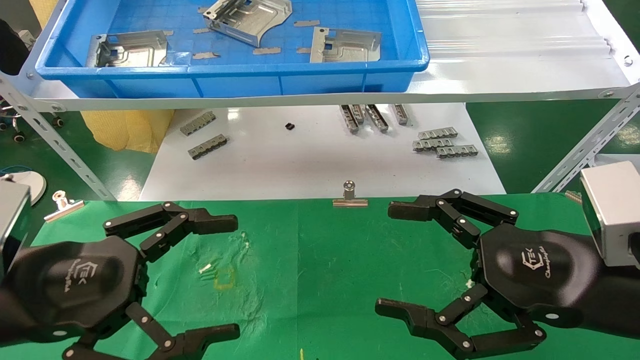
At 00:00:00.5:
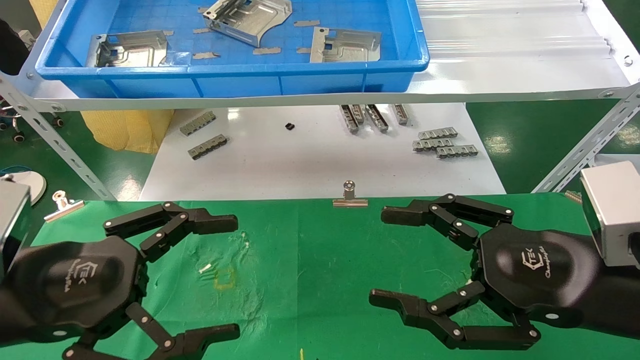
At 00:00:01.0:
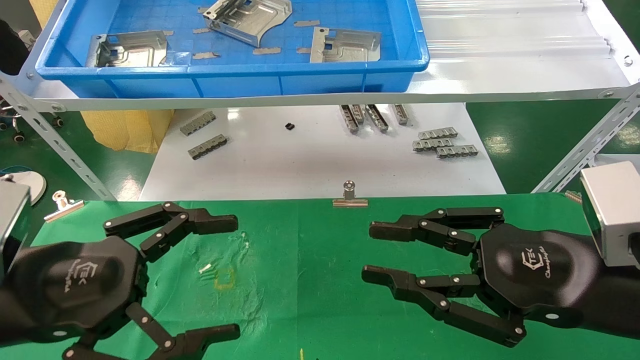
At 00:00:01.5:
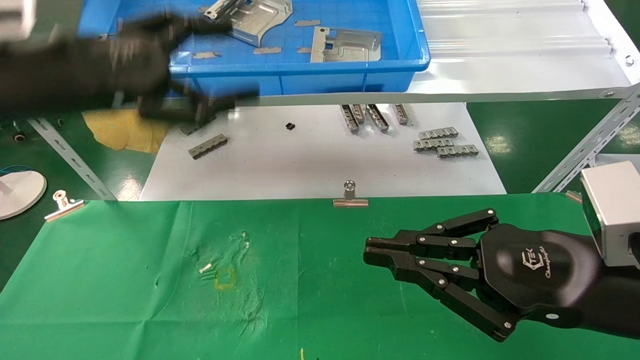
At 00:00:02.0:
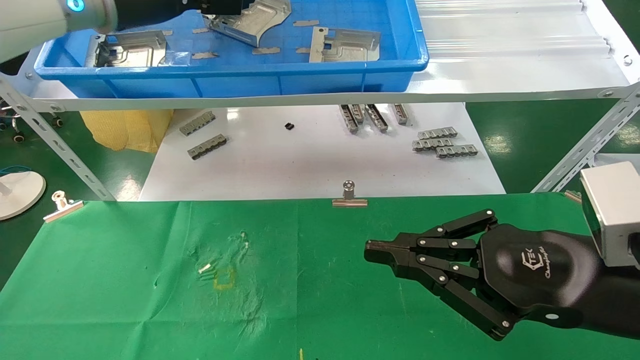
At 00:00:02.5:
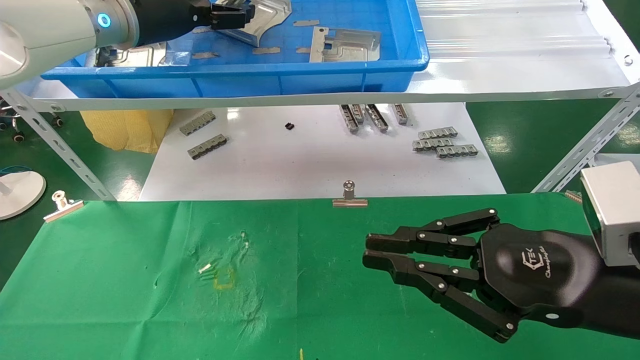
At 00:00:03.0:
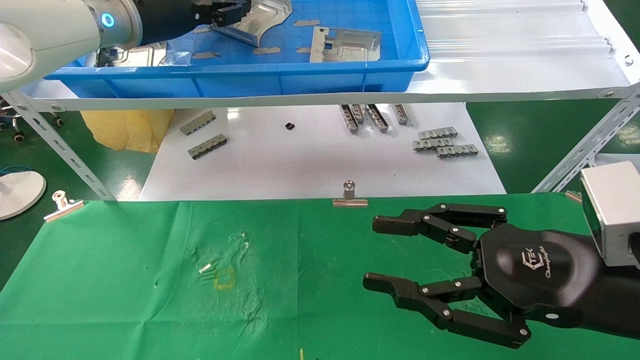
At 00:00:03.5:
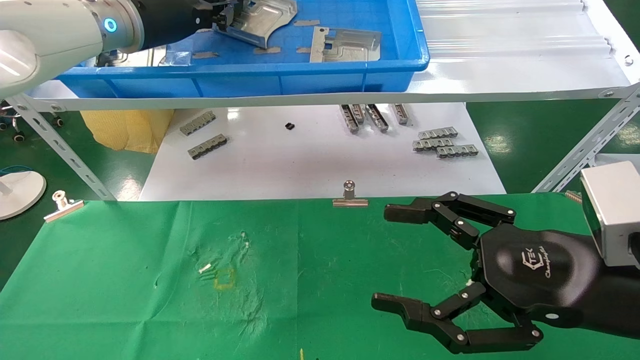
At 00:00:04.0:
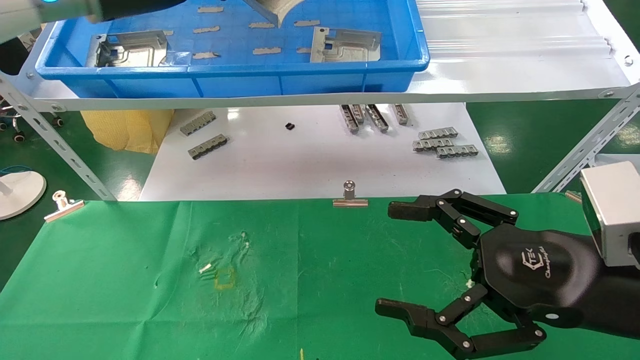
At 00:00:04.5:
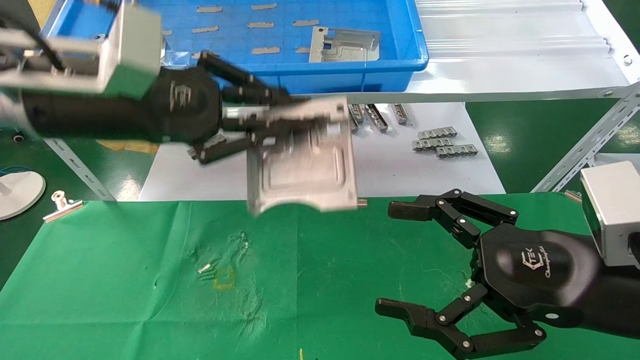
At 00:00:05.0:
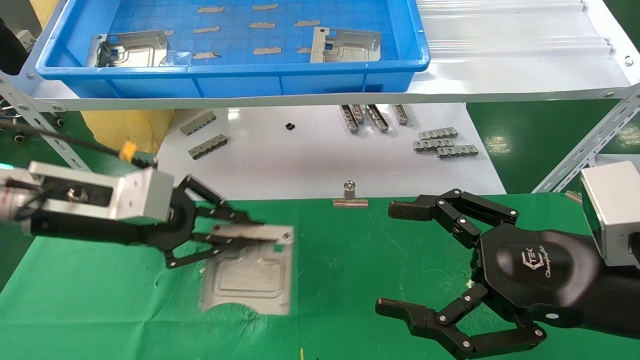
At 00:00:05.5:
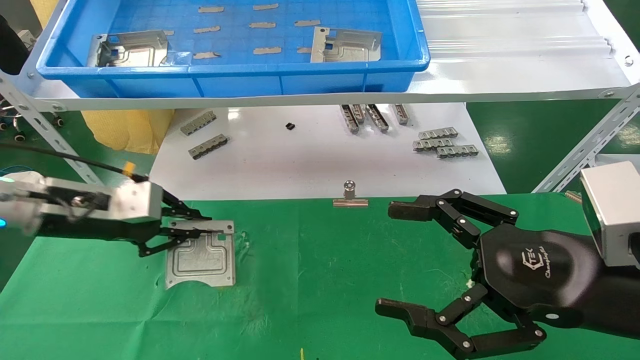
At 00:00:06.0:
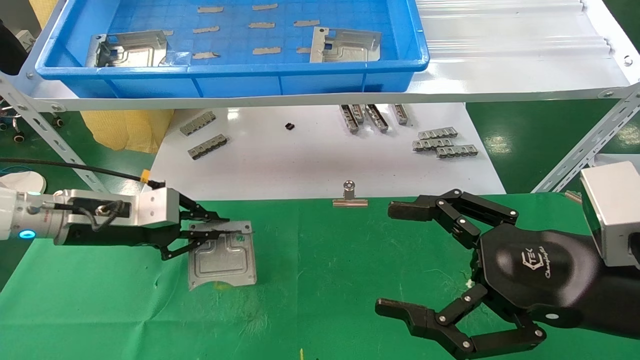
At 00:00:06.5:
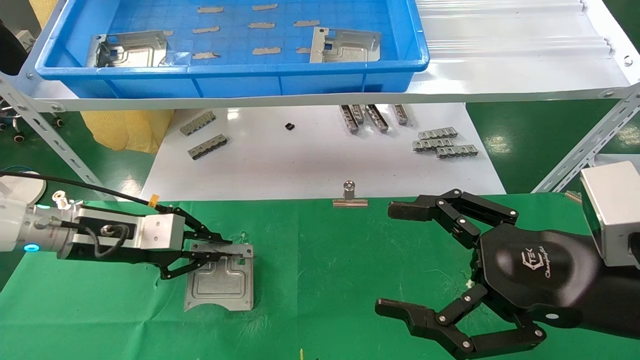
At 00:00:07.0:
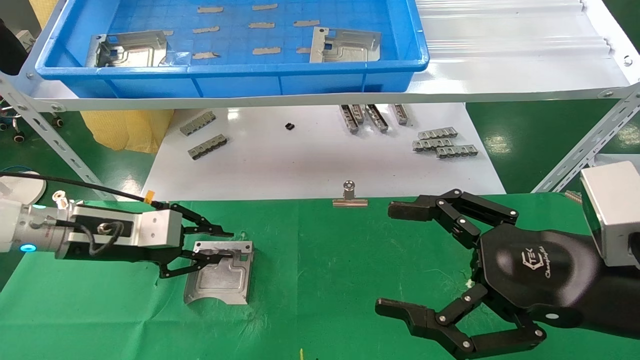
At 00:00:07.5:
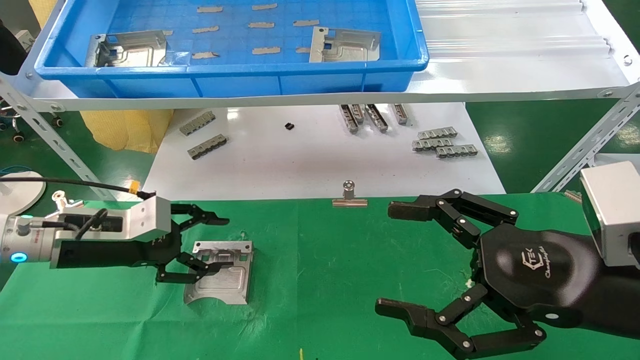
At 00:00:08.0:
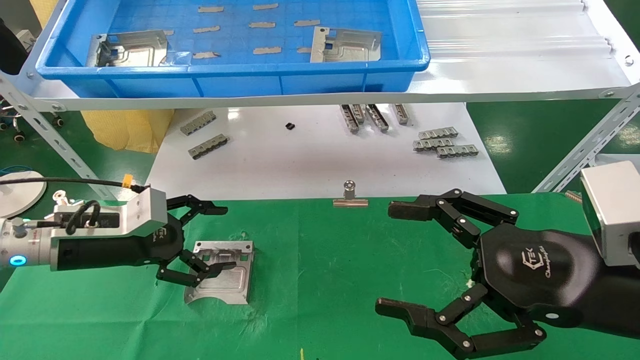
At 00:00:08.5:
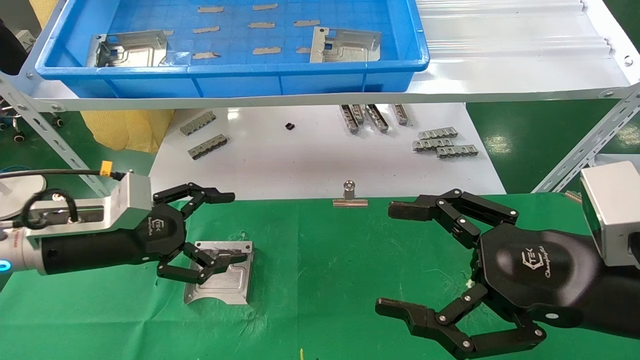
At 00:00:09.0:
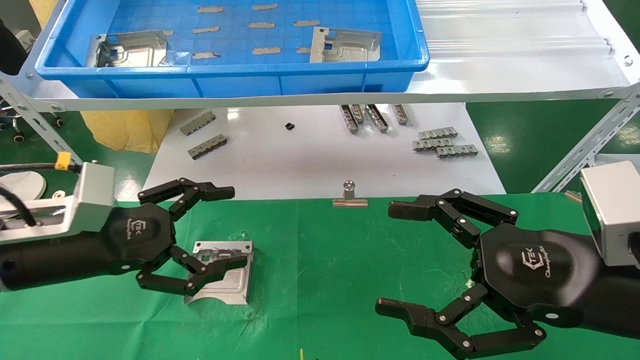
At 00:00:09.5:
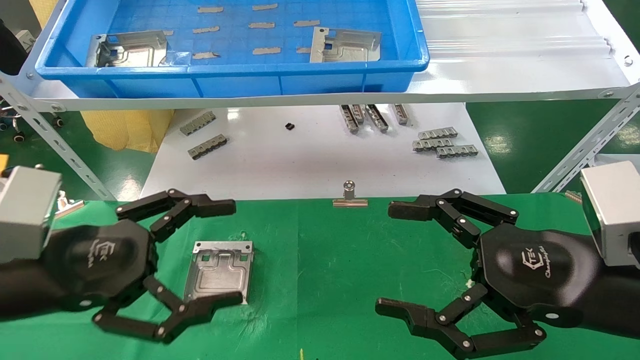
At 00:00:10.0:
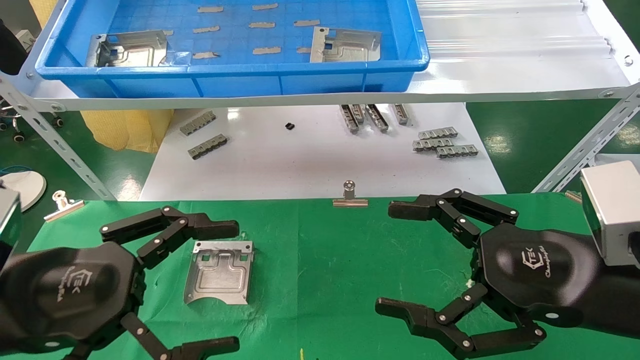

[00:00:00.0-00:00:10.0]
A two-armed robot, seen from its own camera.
Task of the whole recording: use the mechanical arm to pick up the parts and place them on the table.
Step, 00:00:01.5 to 00:00:03.0: Pick up the hard drive bracket from the feeding area.
Step, 00:00:03.5 to 00:00:07.0: Place the hard drive bracket into the box.
00:00:00.0 to 00:00:02.0: The right gripper closes its fingers, while the left gripper travels upward and forward by roughly 35 cm.
00:00:02.0 to 00:00:04.0: The right gripper opens its fingers. Meanwhile the left gripper closes.
00:00:04.0 to 00:00:06.0: The left gripper shifts approximately 25 cm downward and to the left.
00:00:06.0 to 00:00:08.0: The left gripper opens its fingers.
00:00:08.0 to 00:00:10.0: The left gripper goes some 20 cm backward.

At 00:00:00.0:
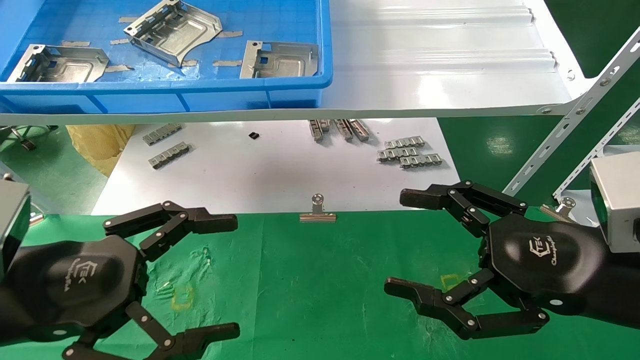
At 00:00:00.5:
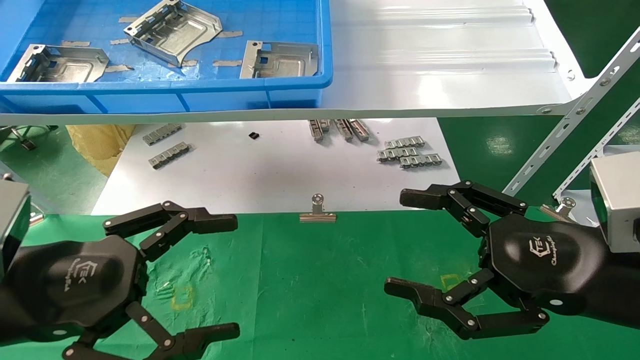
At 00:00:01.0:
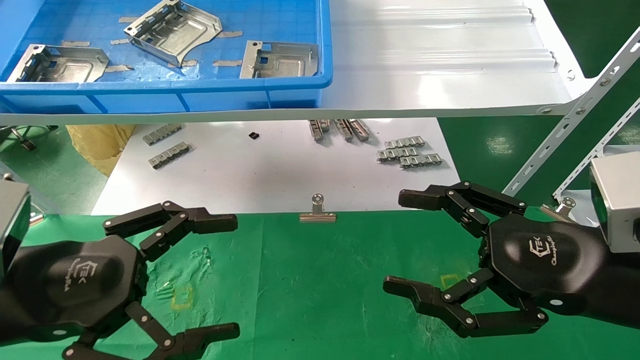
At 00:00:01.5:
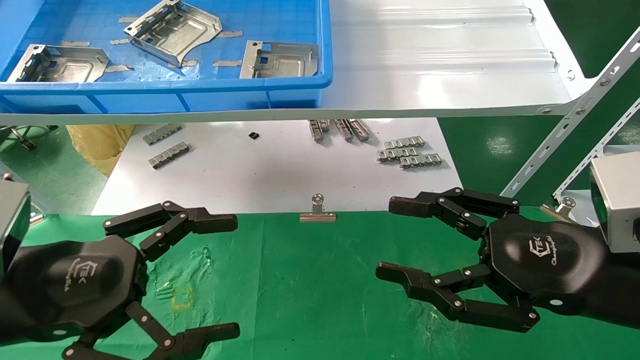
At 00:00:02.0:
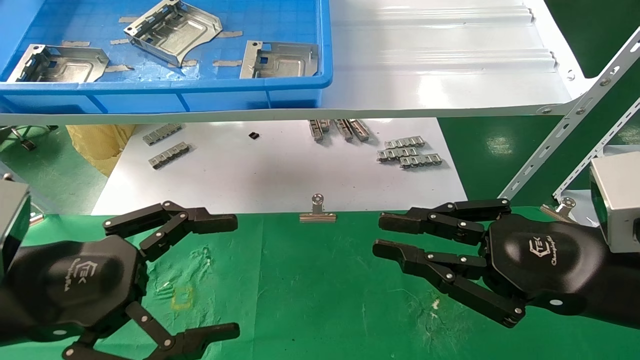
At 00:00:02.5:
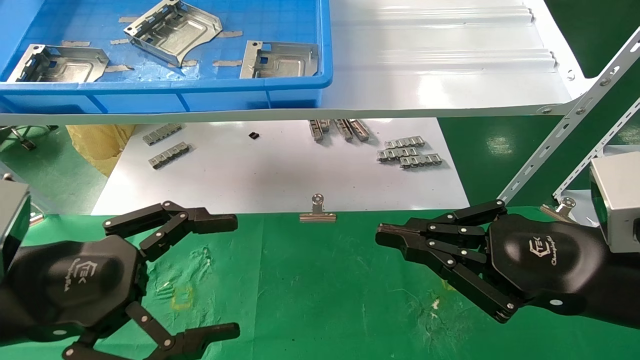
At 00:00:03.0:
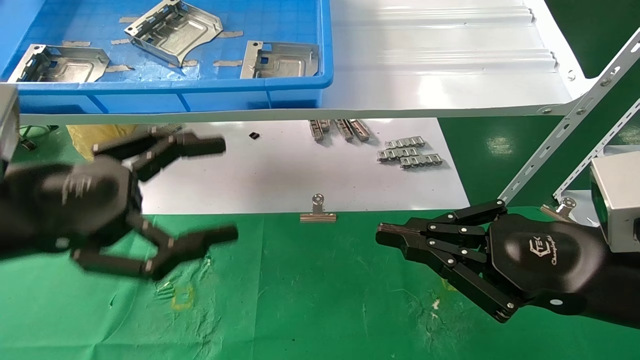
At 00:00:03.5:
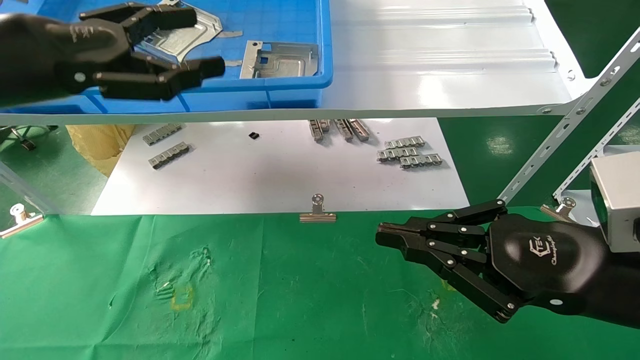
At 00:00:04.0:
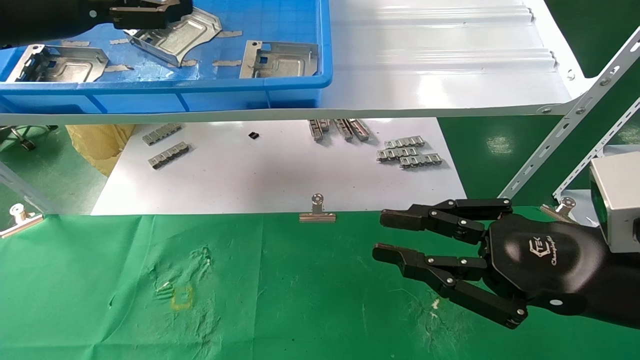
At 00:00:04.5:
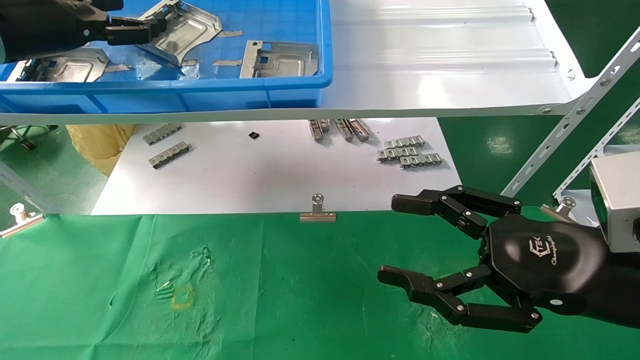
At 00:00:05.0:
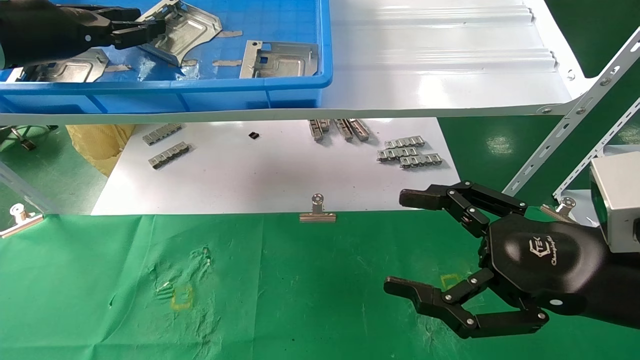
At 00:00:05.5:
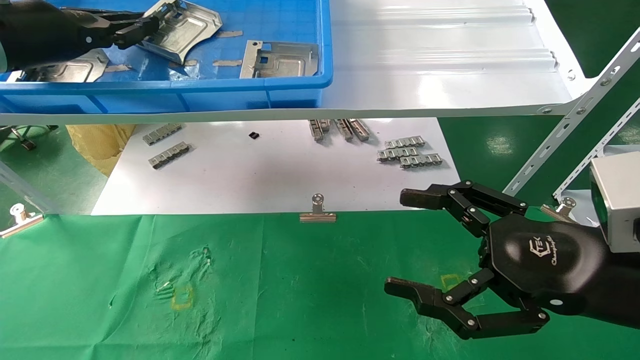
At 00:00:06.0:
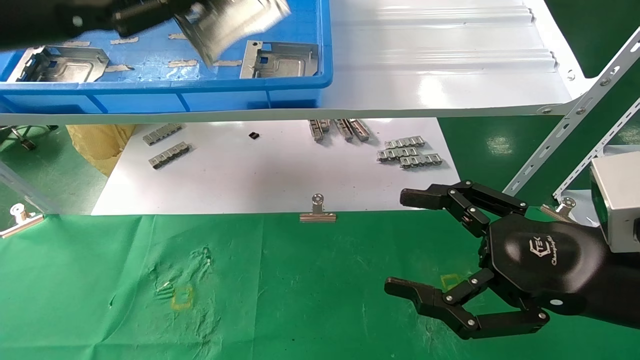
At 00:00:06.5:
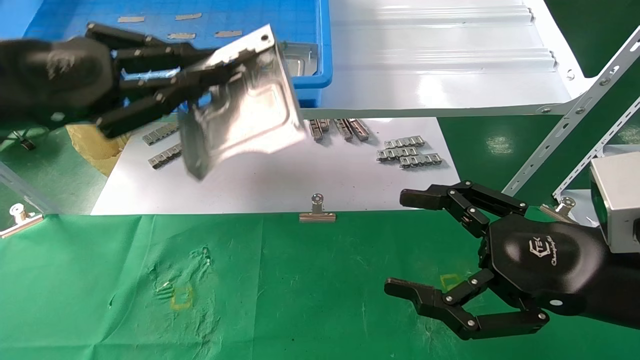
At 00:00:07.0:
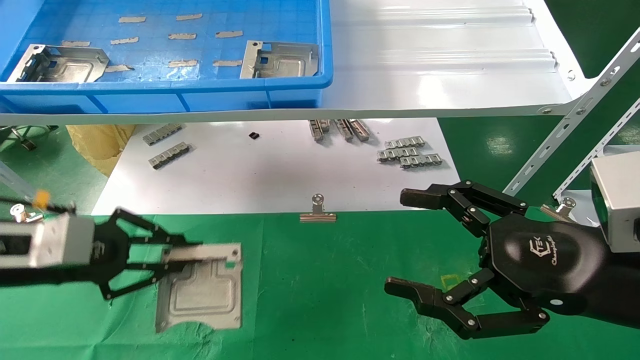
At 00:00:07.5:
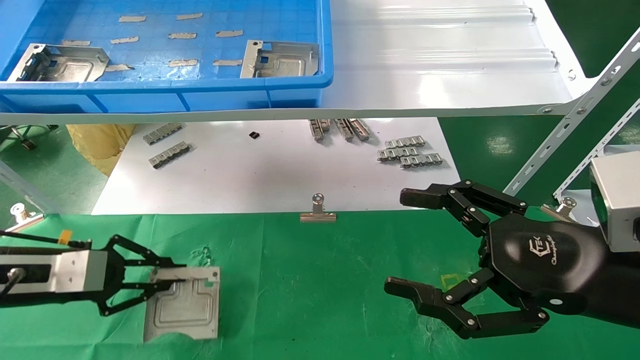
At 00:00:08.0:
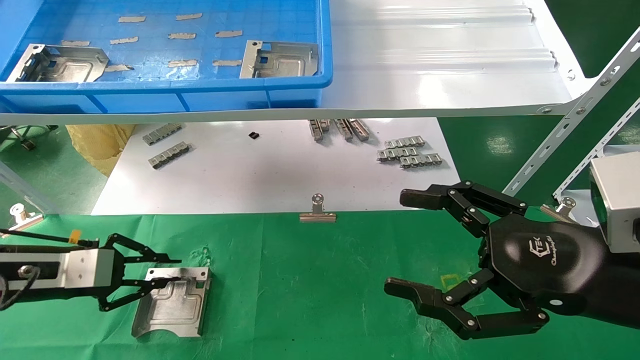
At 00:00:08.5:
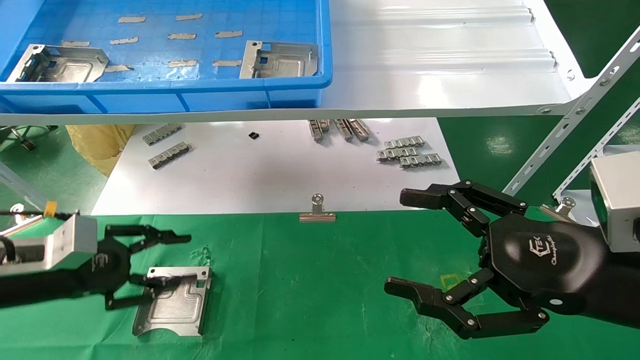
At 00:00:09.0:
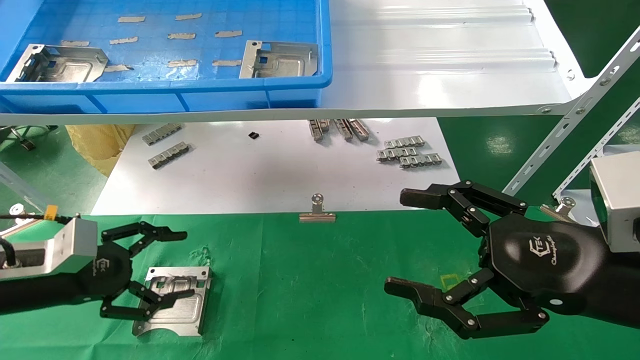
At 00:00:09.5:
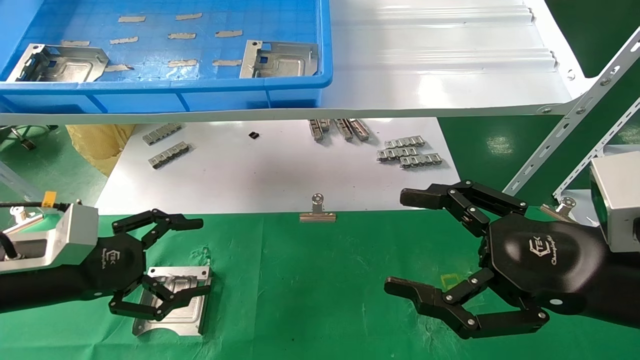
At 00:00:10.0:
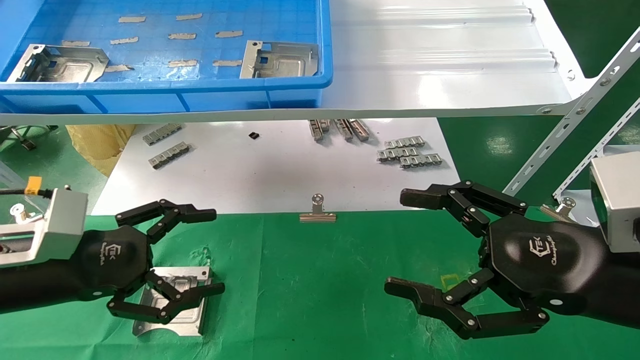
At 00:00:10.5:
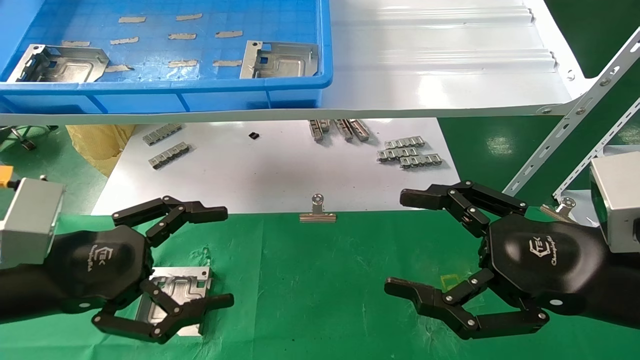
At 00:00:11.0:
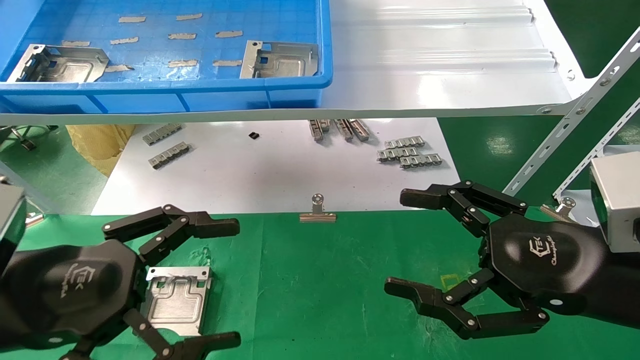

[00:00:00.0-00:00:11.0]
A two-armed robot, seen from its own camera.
Task of the whole recording: use the mechanical arm to pick up the parts and place them on the table.
Step, 00:00:03.0 to 00:00:05.5: Pick up the hard drive bracket from the feeding area.
Step, 00:00:06.0 to 00:00:08.0: Place the hard drive bracket into the box.
00:00:00.0 to 00:00:02.0: The right gripper closes its fingers.
00:00:02.0 to 00:00:03.5: The left gripper heads upward and forward, covering some 20 cm.
00:00:03.5 to 00:00:05.5: The right gripper opens its fingers. Meanwhile the left gripper is displaced forward and to the left by roughly 10 cm, and closes.
00:00:05.5 to 00:00:07.5: The left gripper heads downward, covering roughly 25 cm.
00:00:07.5 to 00:00:09.0: The left gripper opens its fingers.
00:00:09.0 to 00:00:11.0: The left gripper moves backward, to the right and upward, approximately 15 cm.
